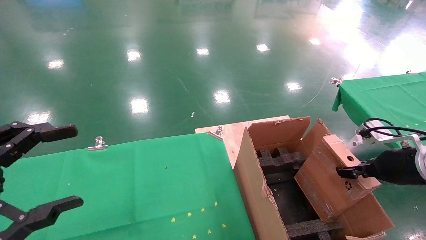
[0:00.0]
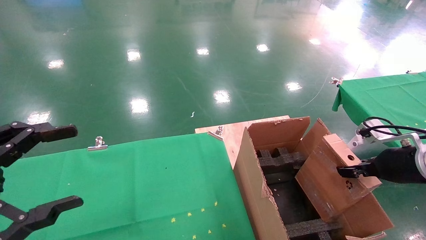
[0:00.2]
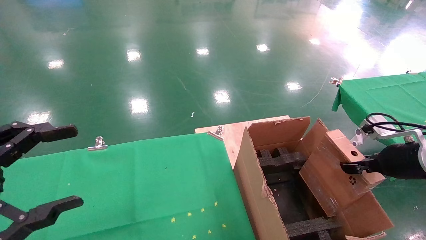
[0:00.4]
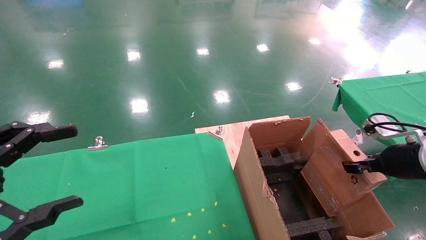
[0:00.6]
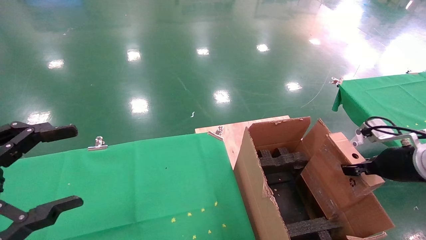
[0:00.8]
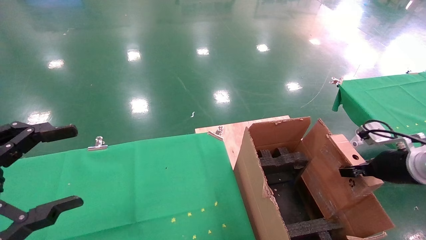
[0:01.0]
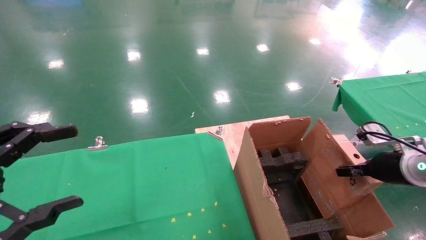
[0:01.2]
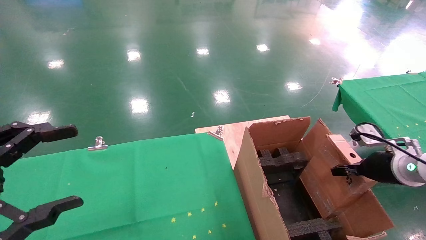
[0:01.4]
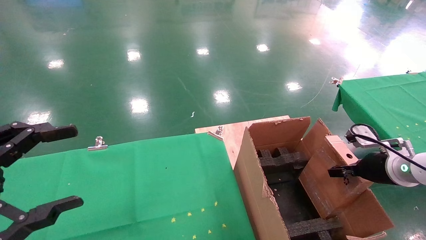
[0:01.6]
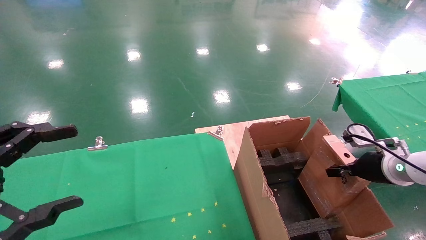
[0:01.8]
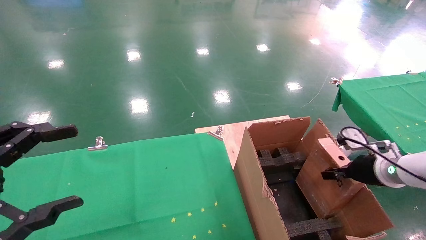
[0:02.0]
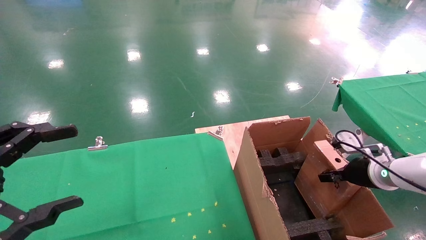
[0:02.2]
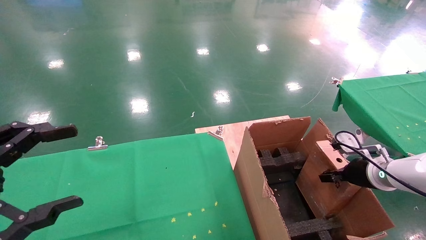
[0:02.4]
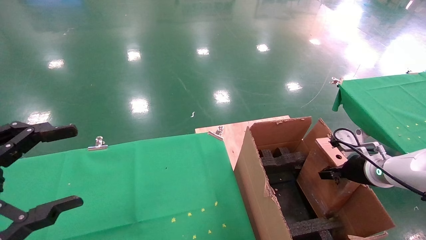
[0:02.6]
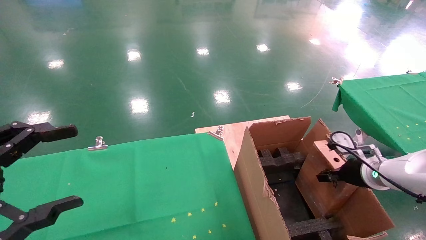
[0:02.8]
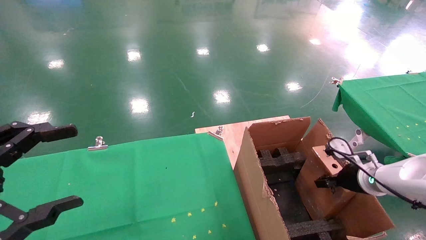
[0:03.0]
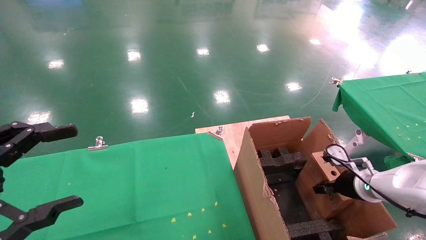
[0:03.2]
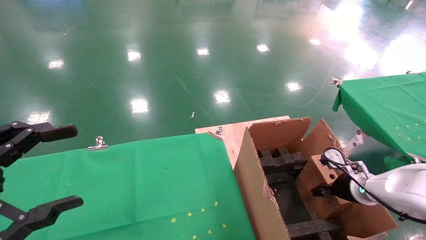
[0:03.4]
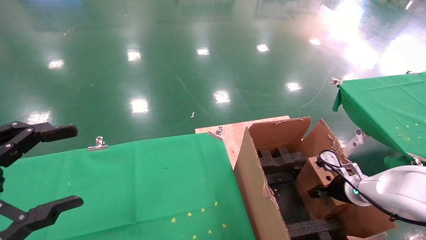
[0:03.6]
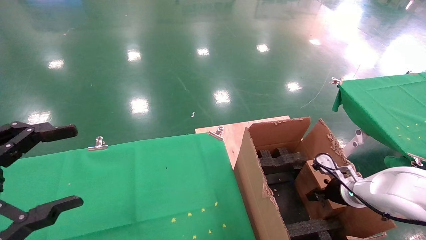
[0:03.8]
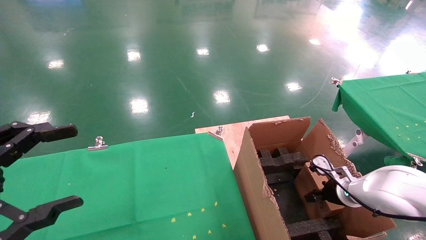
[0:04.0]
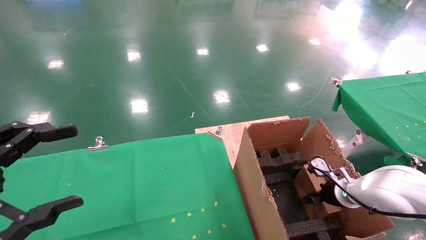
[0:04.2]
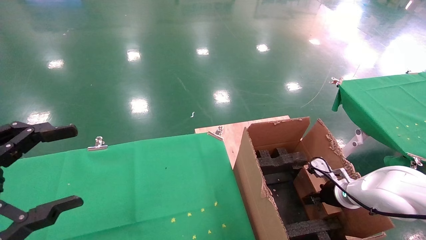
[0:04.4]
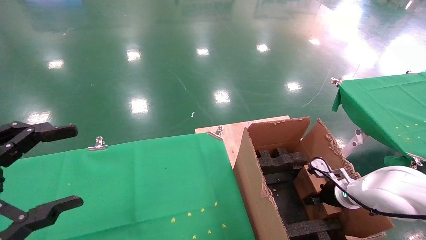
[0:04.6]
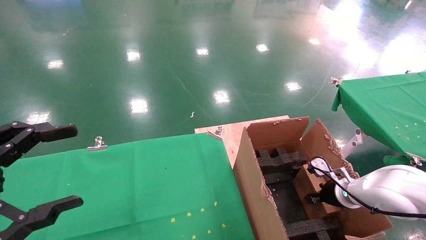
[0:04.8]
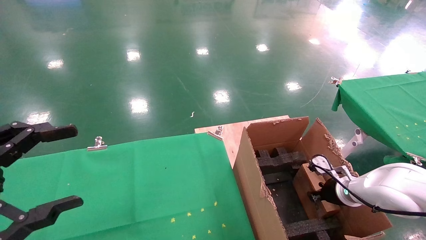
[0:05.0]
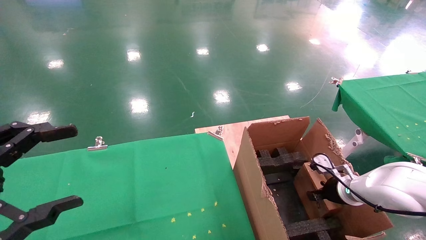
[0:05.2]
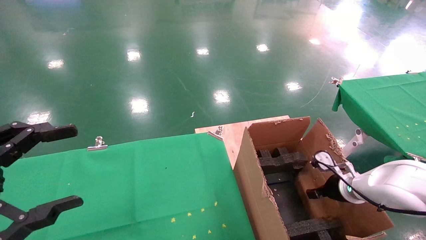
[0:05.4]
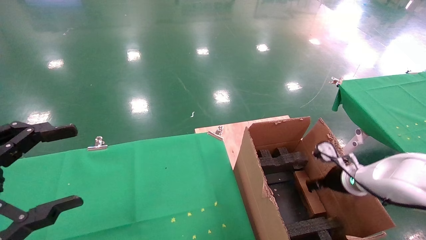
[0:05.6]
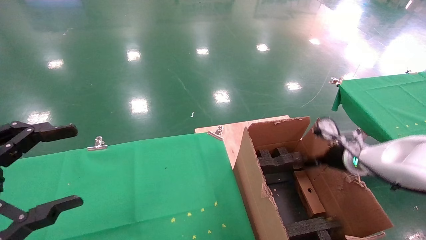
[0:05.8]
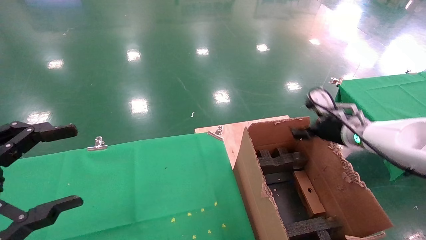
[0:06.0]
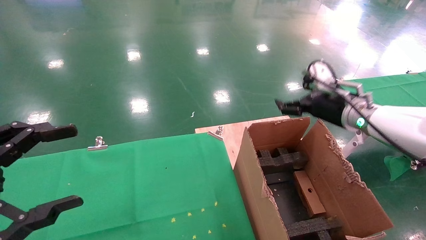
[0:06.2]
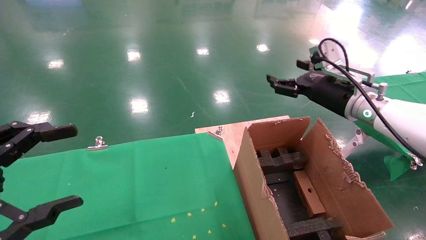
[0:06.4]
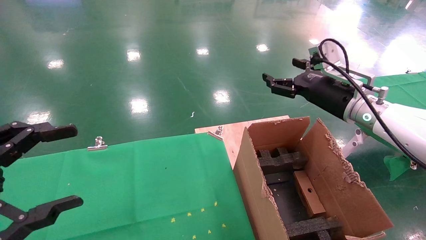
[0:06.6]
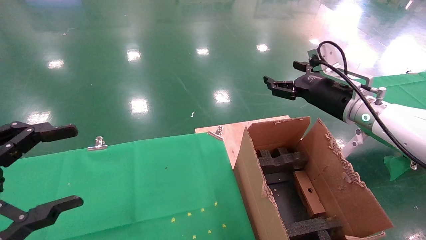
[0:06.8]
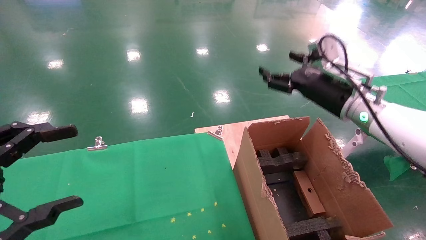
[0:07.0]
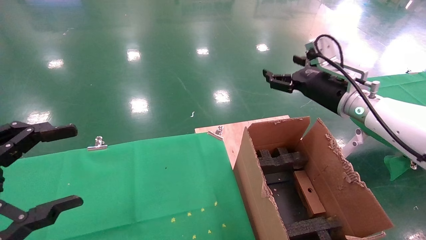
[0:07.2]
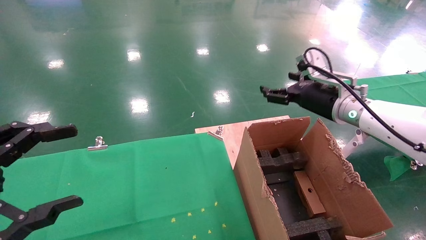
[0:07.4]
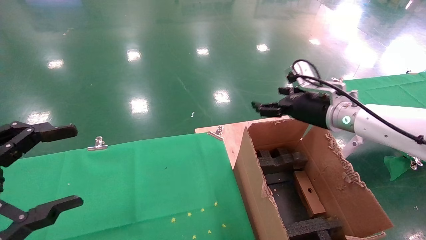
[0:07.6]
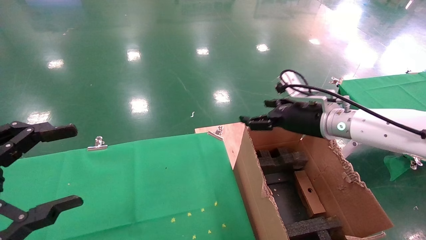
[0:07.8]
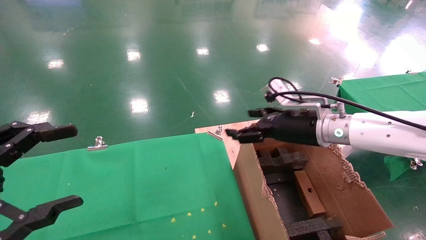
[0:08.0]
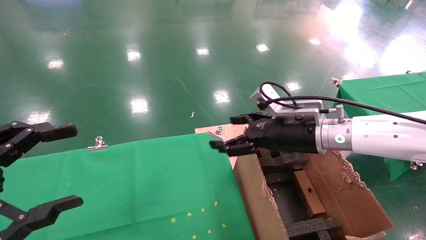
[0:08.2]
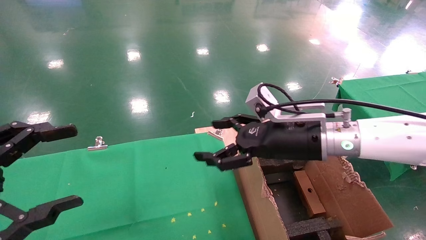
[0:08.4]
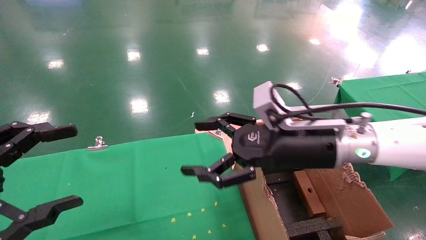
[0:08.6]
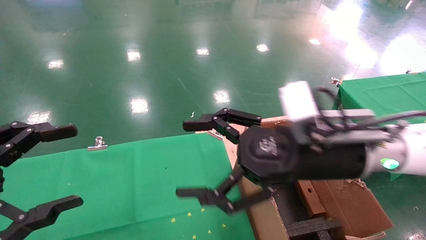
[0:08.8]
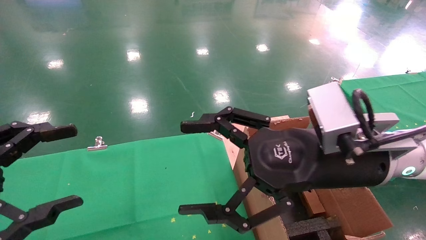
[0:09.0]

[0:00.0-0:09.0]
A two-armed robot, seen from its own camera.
Task of the whole recording: using a robotic arm to pick up a cardboard box and palace it the carton.
Step, 0:00.0 to 0:06.0: Place the mouse and the power cord paper box into the container.
0:00.0 to 0:01.6: The right gripper ends up about 5 cm from where it was.
0:01.6 to 0:03.0: The right gripper is displaced downward by some 5 cm.
0:03.0 to 0:04.4: The right gripper is displaced downward by approximately 5 cm.
0:04.4 to 0:06.0: The right gripper moves upward, approximately 15 cm, and opens up.
0:06.0 to 0:07.6: The right gripper heads to the left, covering about 5 cm.
0:07.6 to 0:09.0: The right gripper is displaced backward and to the left by some 20 cm.
